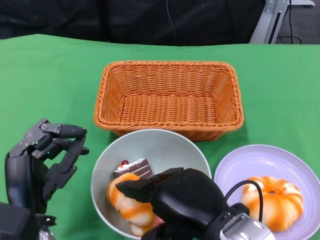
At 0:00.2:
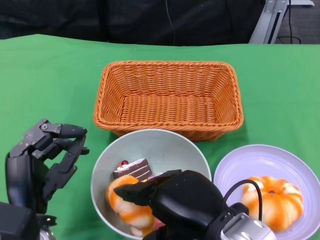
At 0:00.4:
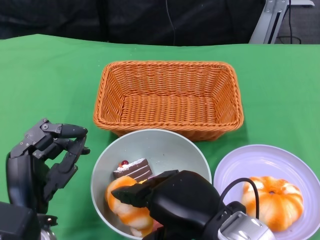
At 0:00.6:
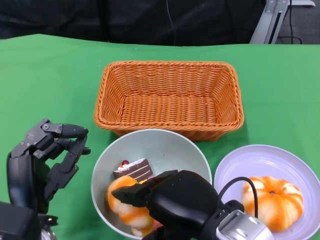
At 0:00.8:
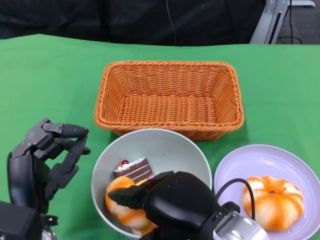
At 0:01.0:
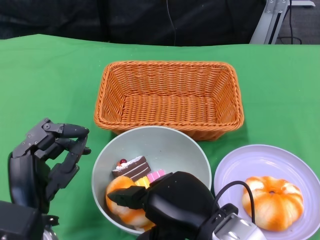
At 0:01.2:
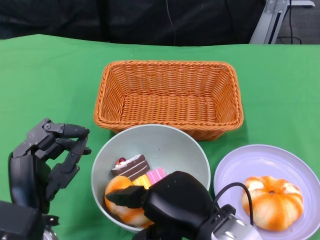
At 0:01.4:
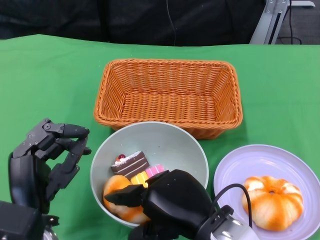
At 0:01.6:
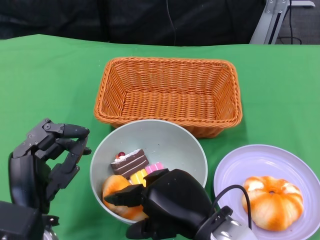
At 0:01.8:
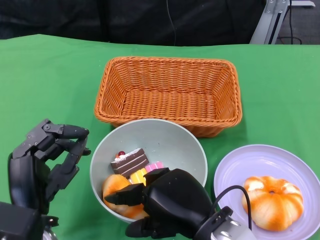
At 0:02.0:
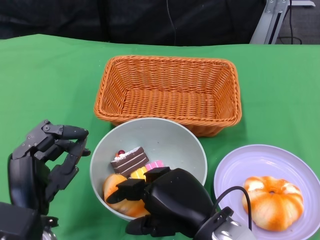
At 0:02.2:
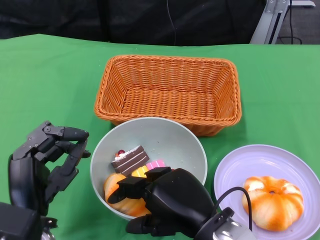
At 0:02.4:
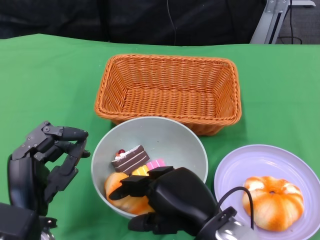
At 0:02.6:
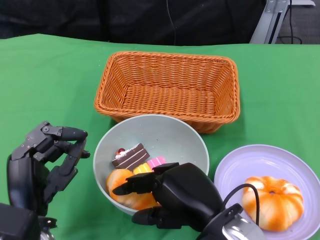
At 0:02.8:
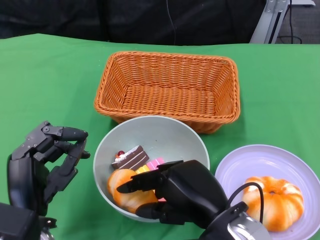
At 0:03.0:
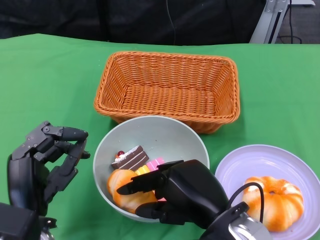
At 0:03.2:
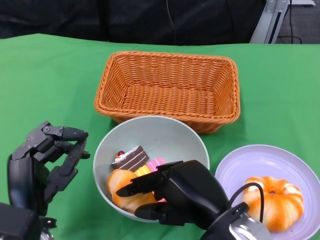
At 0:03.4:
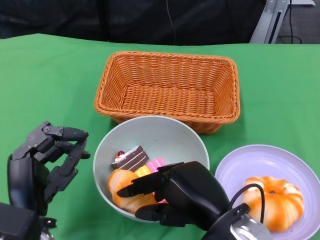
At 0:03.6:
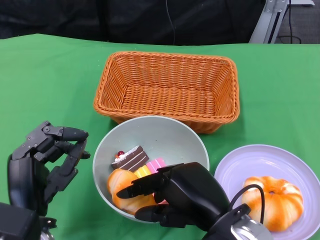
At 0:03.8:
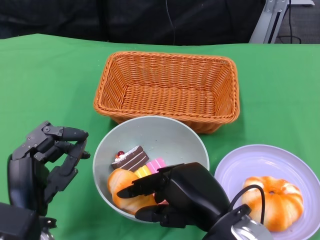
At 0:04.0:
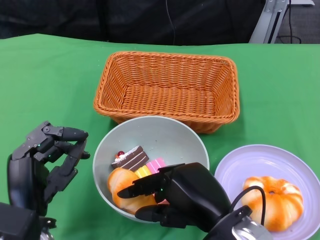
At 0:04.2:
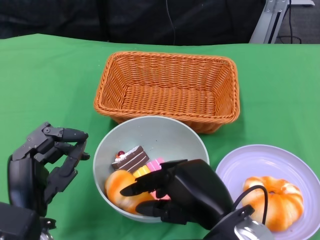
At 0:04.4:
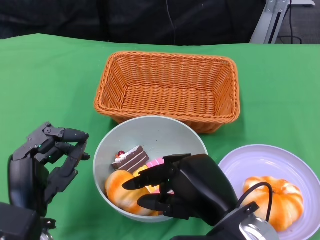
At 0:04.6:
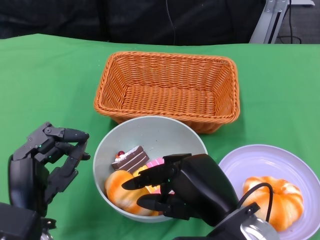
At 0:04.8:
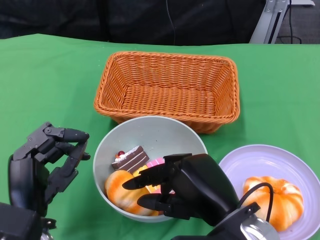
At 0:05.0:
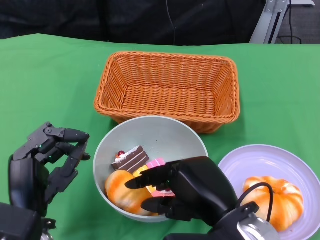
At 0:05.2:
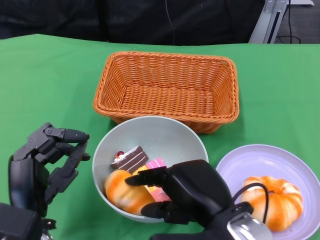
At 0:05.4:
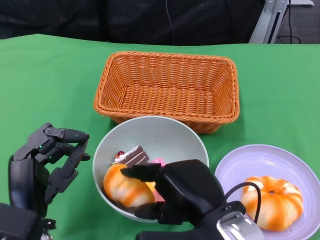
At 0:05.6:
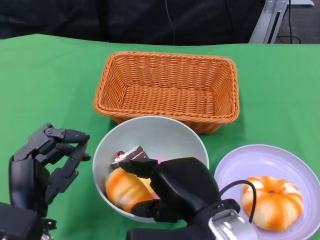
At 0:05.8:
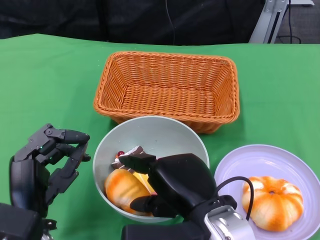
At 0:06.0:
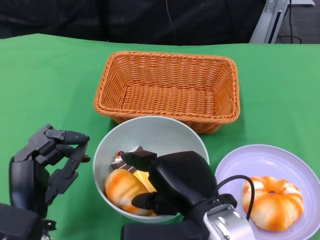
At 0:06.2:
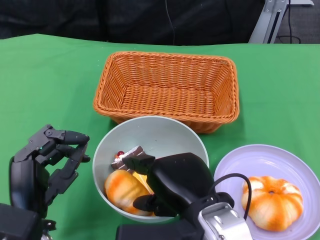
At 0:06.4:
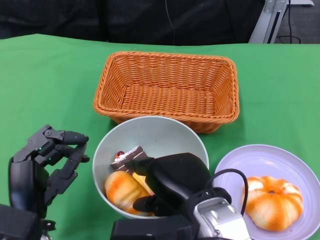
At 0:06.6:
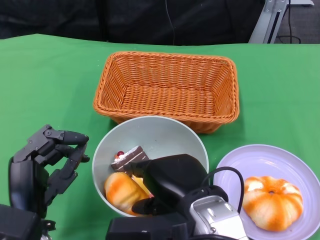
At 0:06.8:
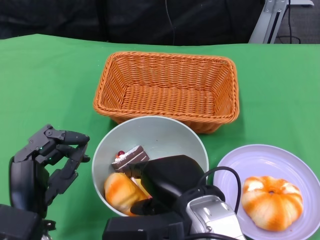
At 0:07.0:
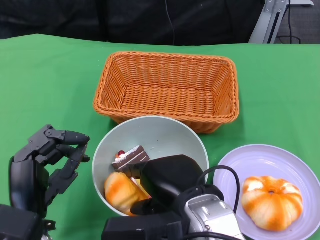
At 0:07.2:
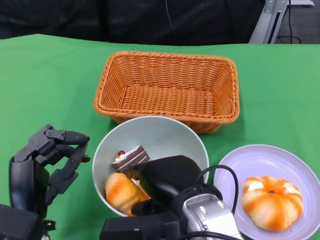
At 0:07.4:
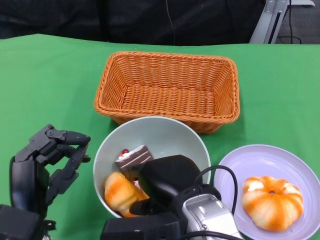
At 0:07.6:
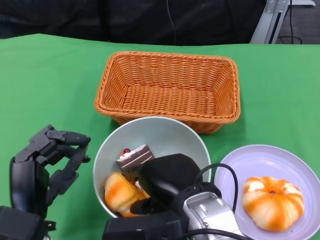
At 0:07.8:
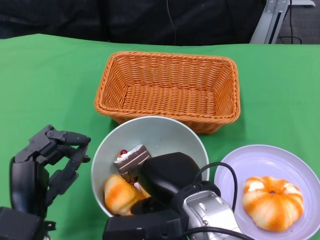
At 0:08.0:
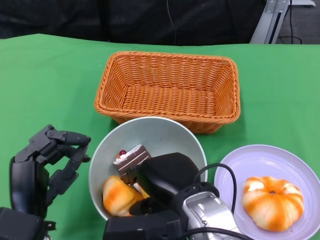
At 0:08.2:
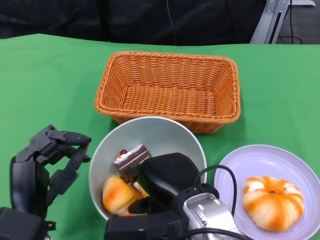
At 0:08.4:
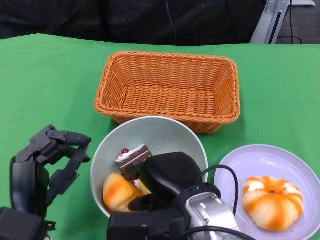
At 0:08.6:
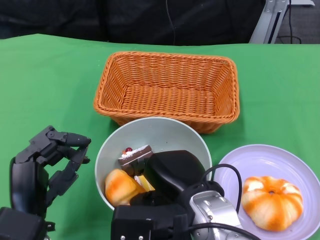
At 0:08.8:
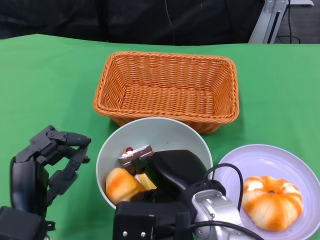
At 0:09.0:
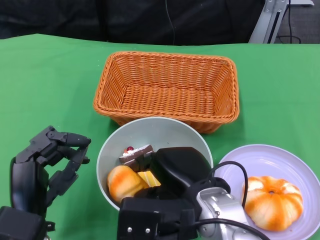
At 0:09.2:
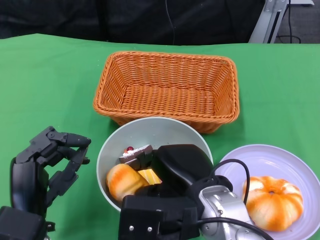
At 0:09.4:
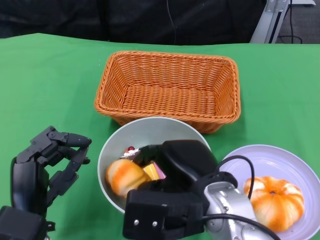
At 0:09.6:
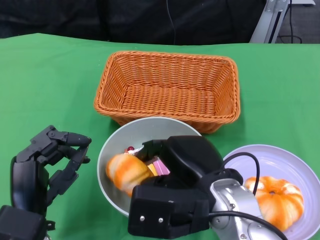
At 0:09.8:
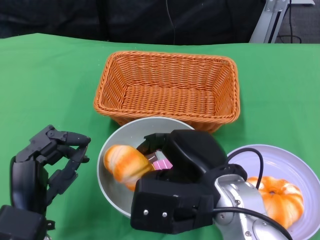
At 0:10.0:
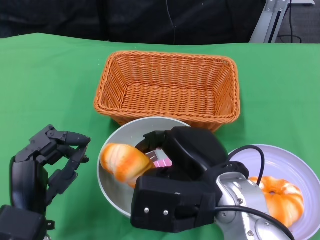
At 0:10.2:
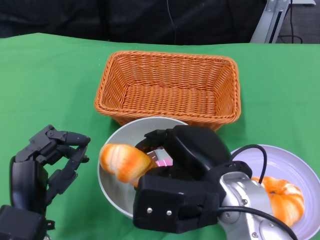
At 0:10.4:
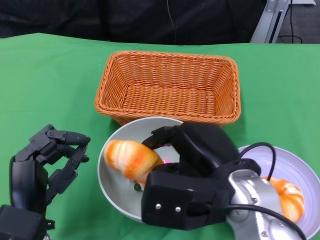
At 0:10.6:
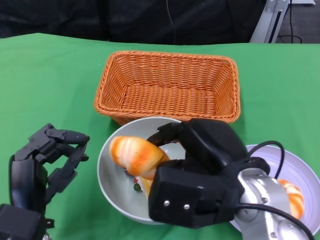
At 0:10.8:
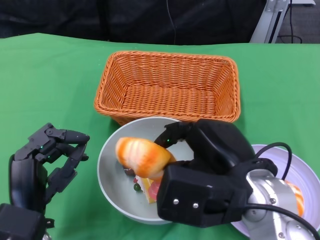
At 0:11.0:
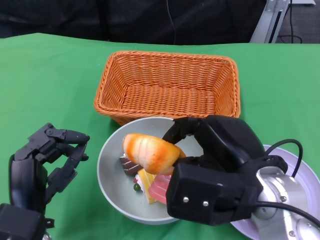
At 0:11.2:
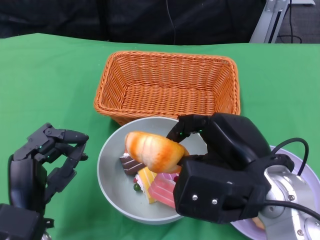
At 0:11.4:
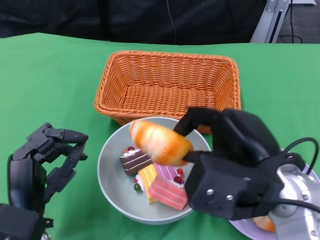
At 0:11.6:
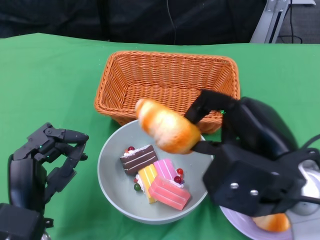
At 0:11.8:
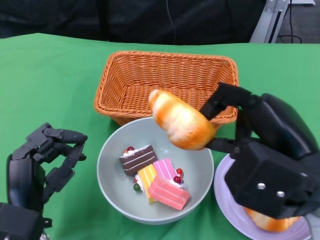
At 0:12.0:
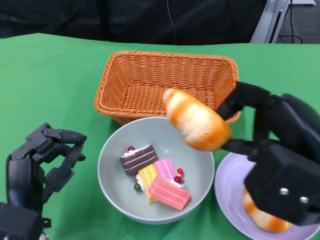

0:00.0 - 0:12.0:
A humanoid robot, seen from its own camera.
0:00.0 - 0:01.6: The hands make only small movements.
0:01.6 - 0:03.0: There are only small adjustments of the hands.
0:03.0 - 0:06.0: The hands make only small movements.
0:06.0 - 0:09.0: The hands stay close to where they were, moving slightly.
0:09.0 - 0:10.4: The right hand changes place by approximately 5 cm.
0:10.4 - 0:12.0: The right hand heads to the right, covering some 10 cm.

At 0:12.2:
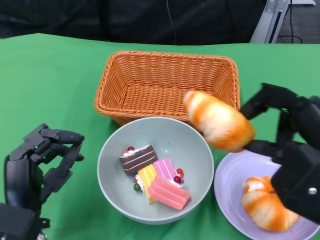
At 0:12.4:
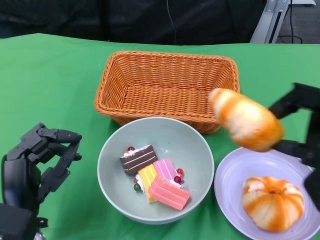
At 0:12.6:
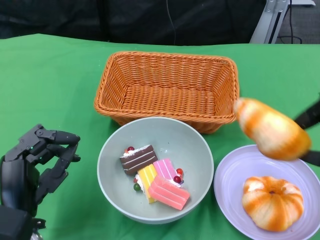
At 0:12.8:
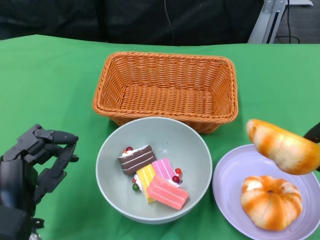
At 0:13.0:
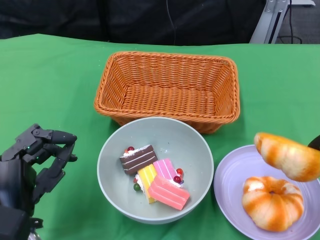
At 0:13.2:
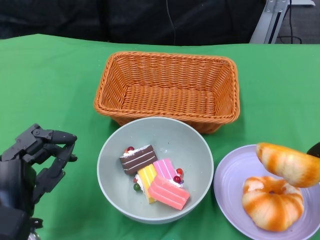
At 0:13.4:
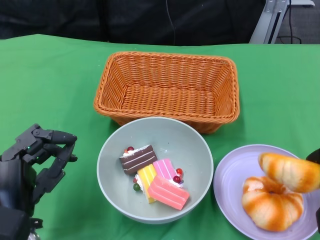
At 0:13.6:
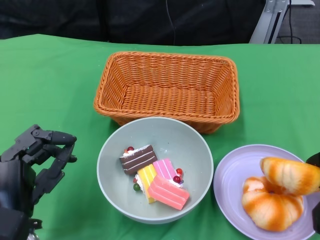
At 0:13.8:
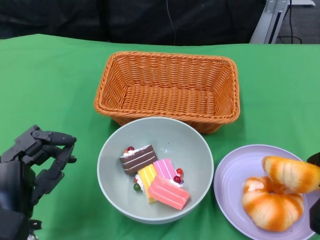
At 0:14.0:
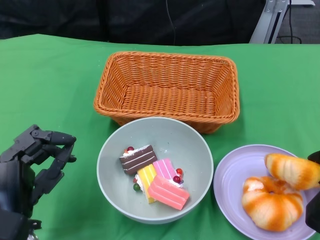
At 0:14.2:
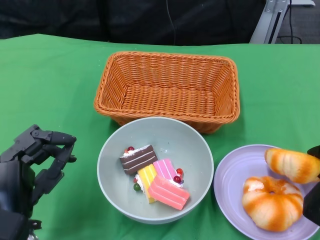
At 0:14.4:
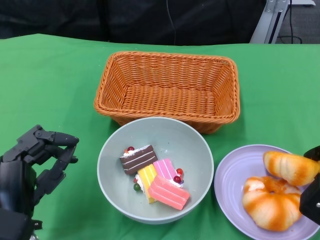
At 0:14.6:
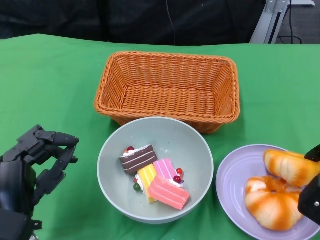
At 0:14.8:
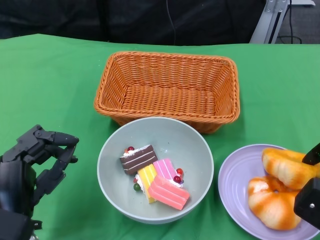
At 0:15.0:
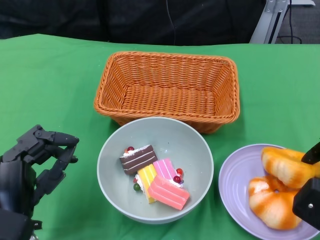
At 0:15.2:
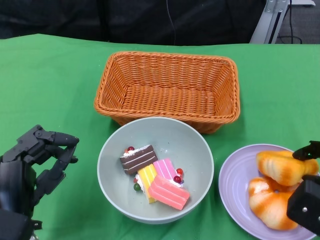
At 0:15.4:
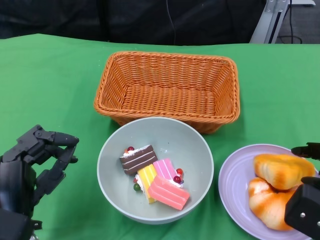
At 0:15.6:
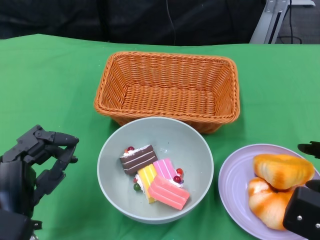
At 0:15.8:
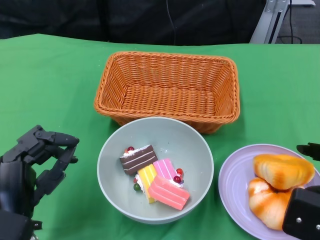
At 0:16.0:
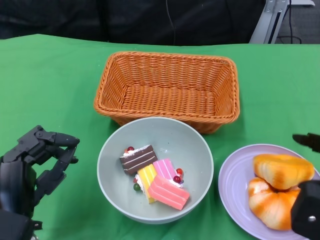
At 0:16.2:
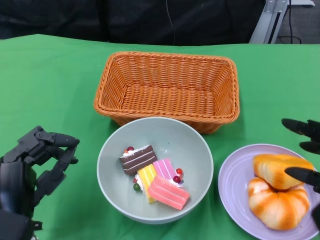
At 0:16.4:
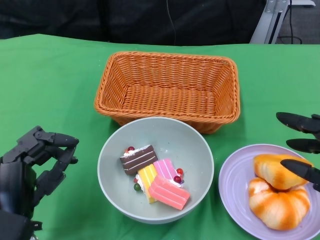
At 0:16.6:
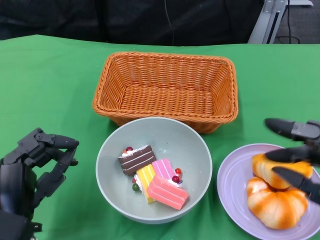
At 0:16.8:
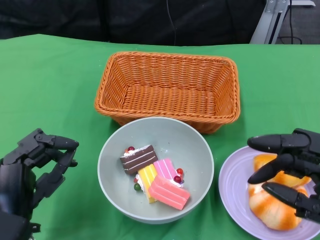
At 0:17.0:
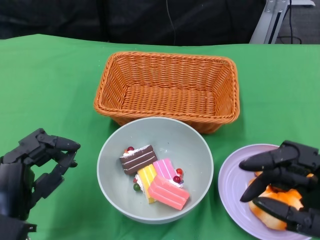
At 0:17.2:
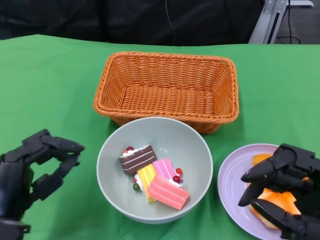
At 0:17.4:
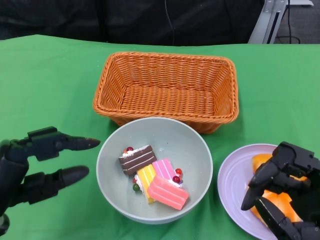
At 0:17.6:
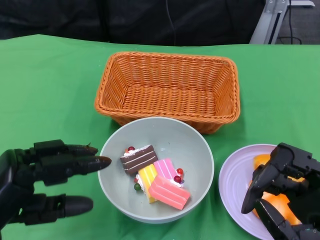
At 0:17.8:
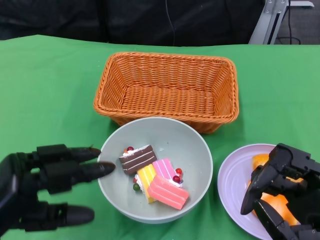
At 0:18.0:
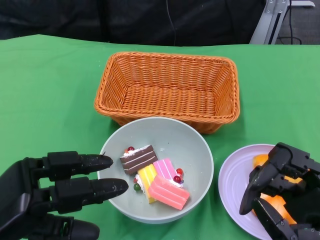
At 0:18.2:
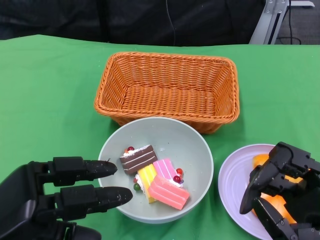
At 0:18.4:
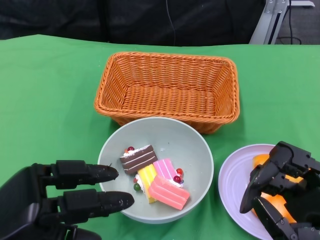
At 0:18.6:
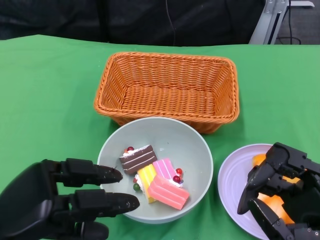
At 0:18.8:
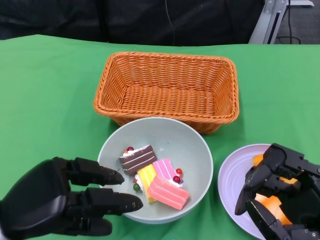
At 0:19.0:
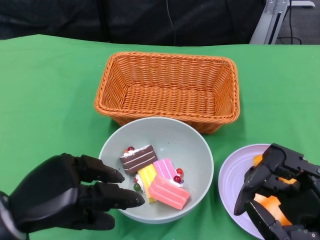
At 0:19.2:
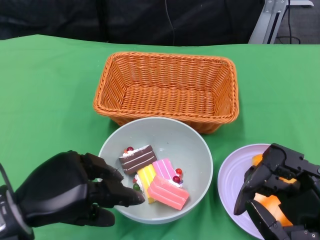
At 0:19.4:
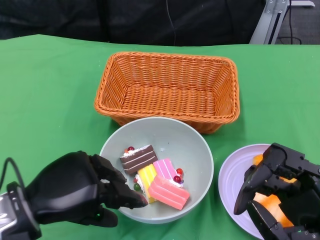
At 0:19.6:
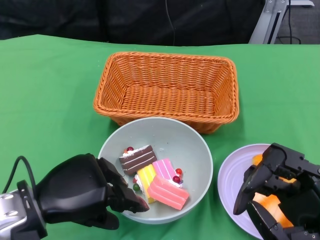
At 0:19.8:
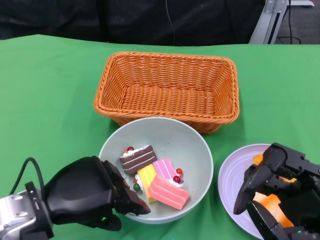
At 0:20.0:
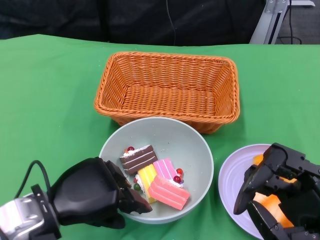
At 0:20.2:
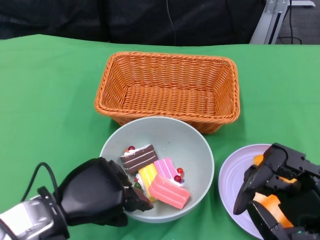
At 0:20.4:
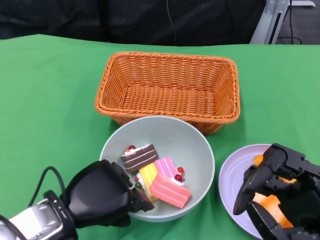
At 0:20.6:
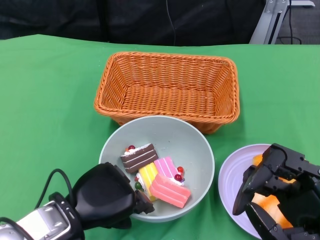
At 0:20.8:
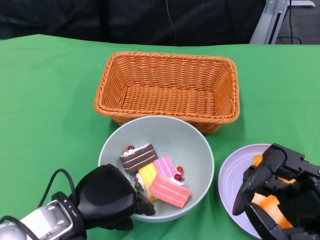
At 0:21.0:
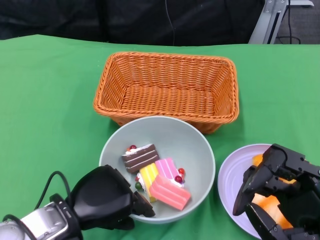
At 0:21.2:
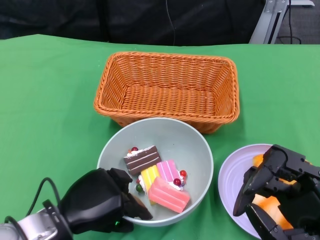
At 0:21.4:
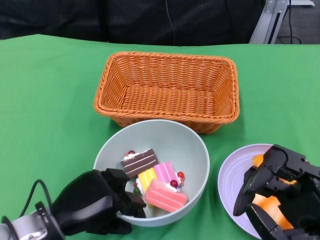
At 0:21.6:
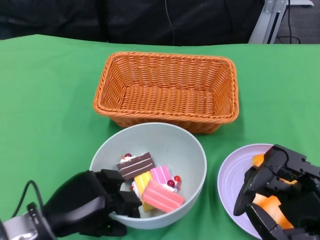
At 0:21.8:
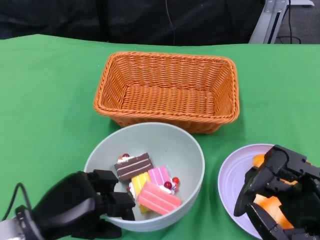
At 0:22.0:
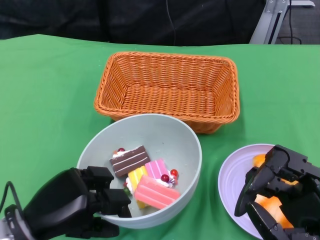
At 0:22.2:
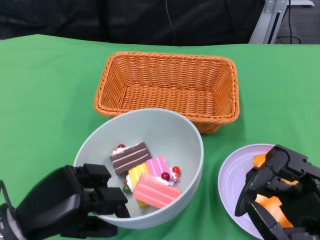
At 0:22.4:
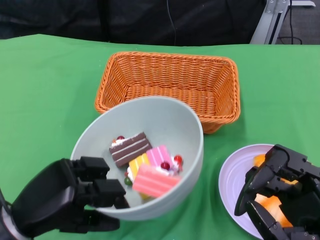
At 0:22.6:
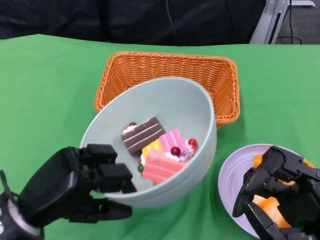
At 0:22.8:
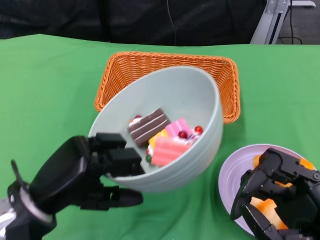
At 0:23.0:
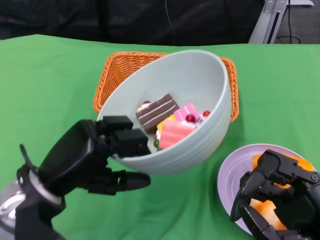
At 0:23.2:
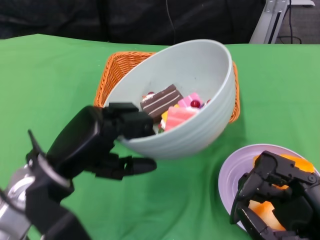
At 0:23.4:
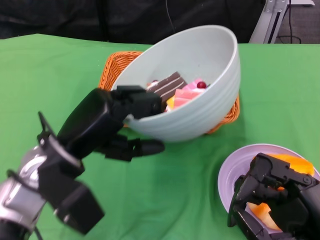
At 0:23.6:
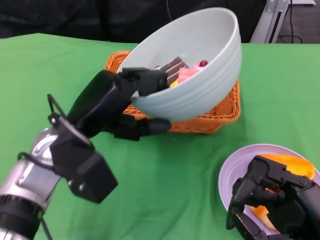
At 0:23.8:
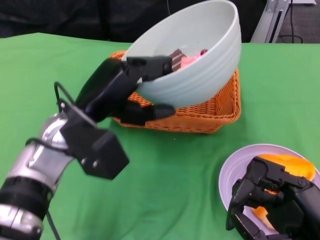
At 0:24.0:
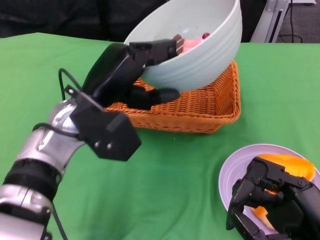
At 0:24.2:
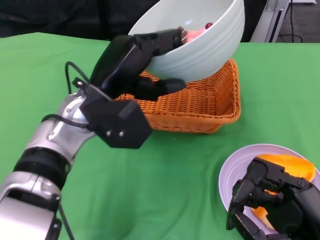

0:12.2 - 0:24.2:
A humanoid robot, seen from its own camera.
Step, 0:12.2 - 0:15.4: Pick up the bread with the right gripper and place it on the plate.
Step, 0:15.8 - 0:21.0: Grasp the bowl with the left gripper.
0:12.2 - 0:13.8: The right hand shifts roughly 10 cm downward and to the right.
0:13.8 - 0:15.2: There are only small adjustments of the hands.
0:15.2 - 0:16.6: The right hand shifts some 10 cm upward and backward.
0:16.6 - 0:18.2: The left hand is displaced upward by roughly 5 cm.
0:18.2 - 0:19.8: The left hand travels to the right by about 5 cm.
0:19.8 - 0:21.2: The left hand heads downward, covering roughly 5 cm.
0:21.2 - 0:22.6: The left hand goes about 5 cm upward.
0:22.6 - 0:24.2: The left hand goes about 15 cm forward, to the right and upward.
